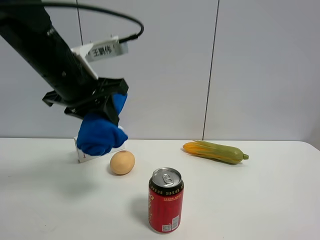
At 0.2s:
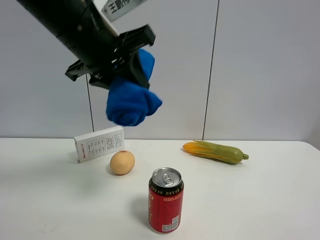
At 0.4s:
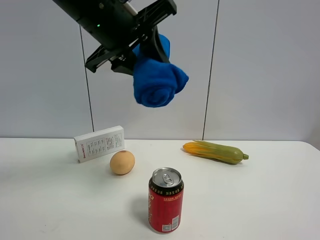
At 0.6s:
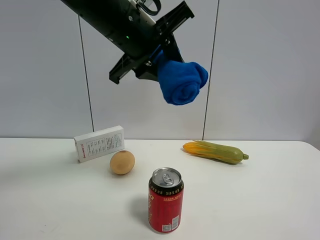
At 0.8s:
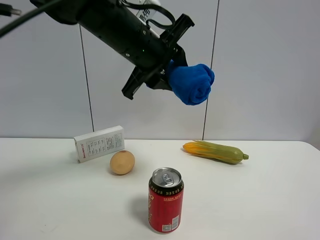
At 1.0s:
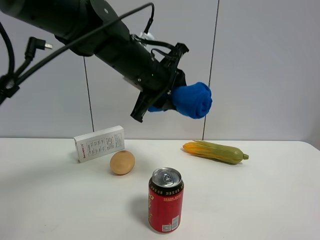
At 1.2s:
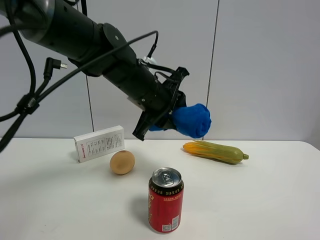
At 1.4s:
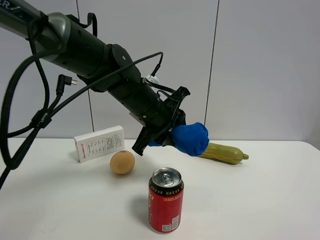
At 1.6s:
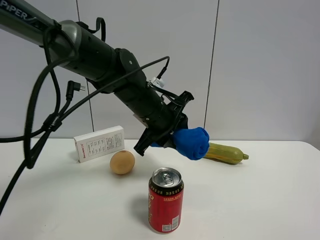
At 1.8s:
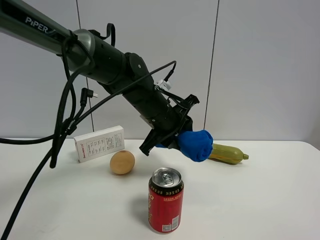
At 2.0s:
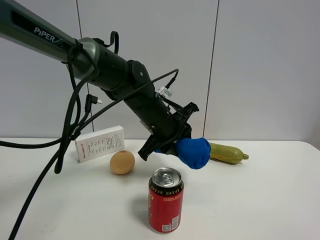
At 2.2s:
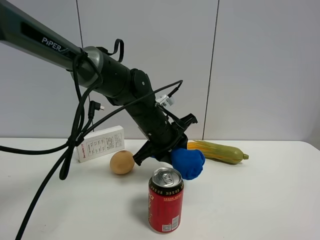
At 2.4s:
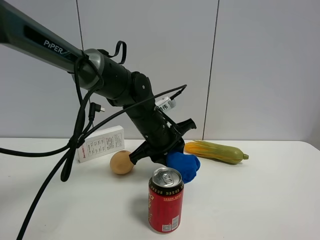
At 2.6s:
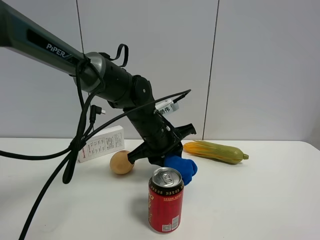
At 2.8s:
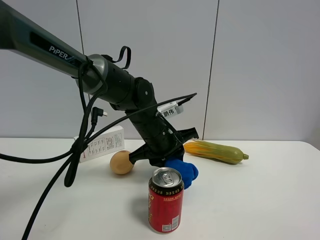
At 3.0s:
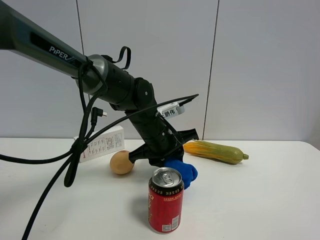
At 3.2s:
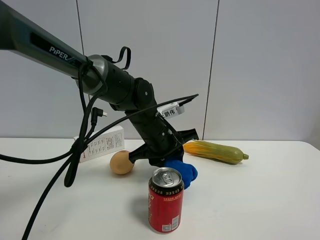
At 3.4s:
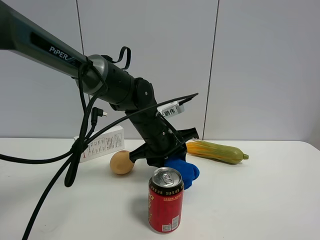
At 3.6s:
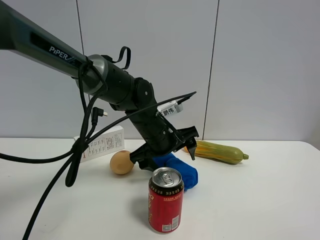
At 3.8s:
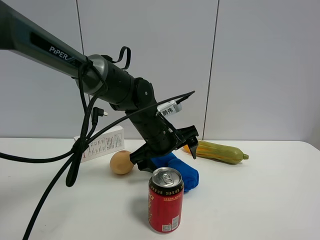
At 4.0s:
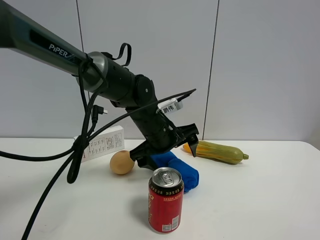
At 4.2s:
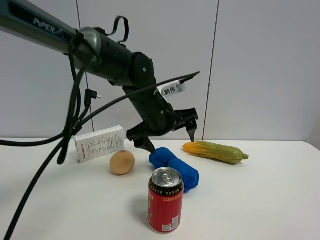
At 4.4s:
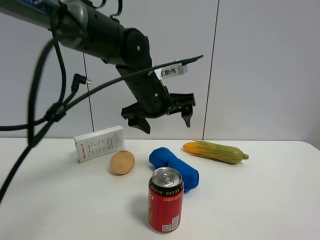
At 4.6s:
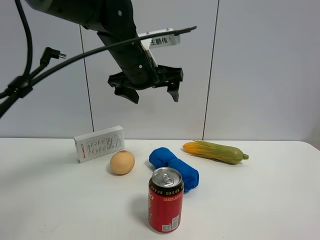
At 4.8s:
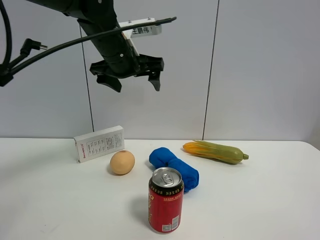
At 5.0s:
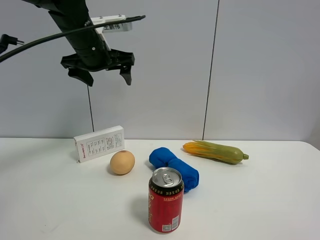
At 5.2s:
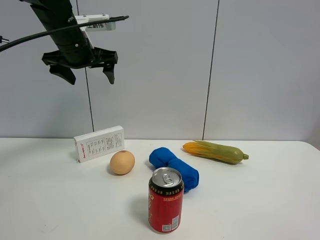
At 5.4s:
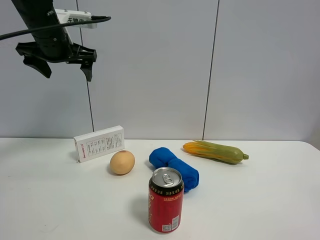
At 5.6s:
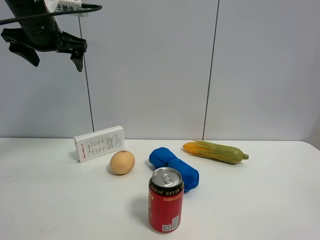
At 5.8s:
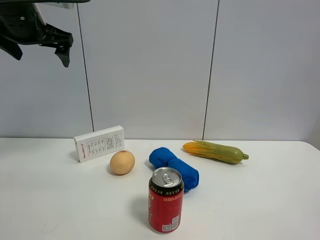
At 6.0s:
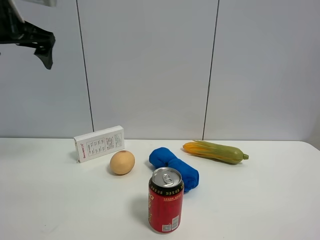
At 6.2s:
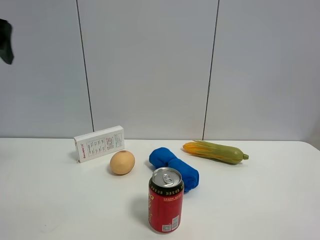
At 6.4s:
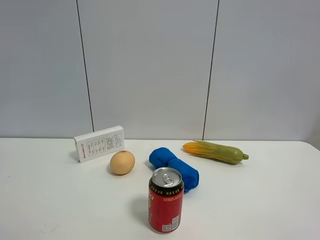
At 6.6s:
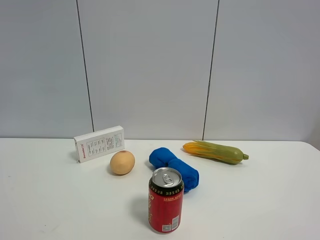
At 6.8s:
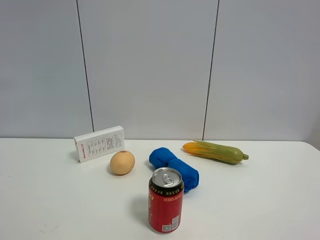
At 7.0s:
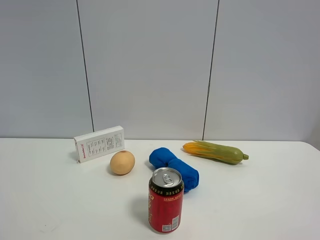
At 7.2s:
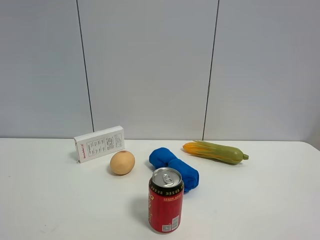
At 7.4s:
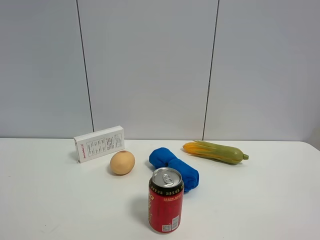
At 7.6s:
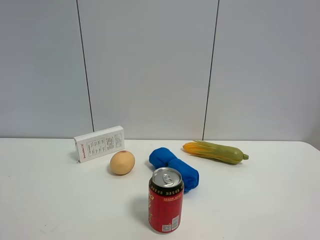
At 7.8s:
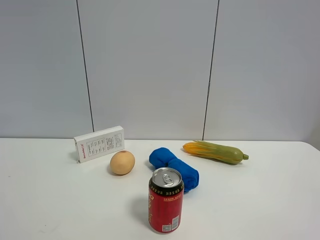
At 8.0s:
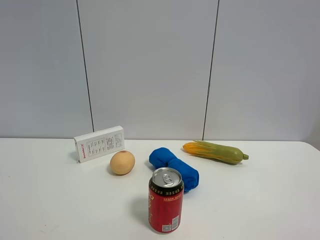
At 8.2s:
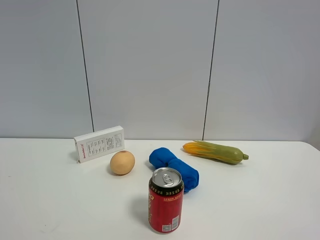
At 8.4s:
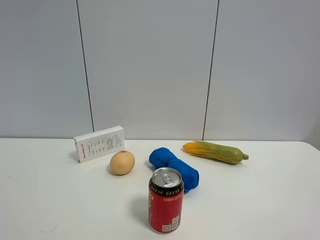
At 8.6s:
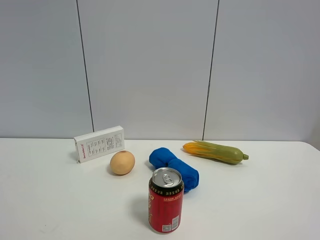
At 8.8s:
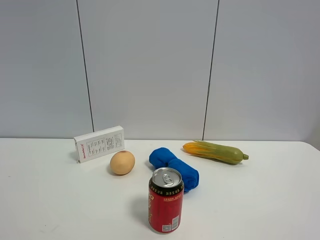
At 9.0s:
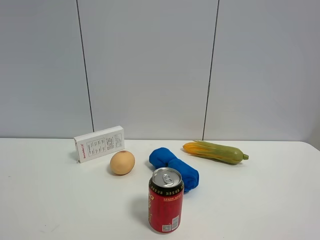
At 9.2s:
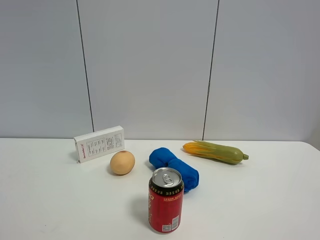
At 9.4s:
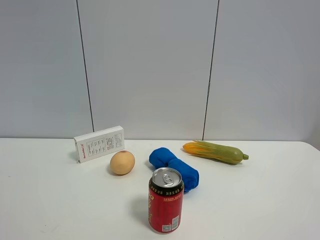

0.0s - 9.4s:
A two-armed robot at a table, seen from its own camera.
Task of the whole recording: the gripper move the object.
Step, 0.0s - 3.6s: Place the blue towel on the table with the left gripper.
0.0s - 1.6s: The left gripper shifts roughly 15 cm to the right, downward and forward.
1.6s - 3.2s: The left gripper is displaced downward by some 5 cm.
3.2s - 4.8s: The left gripper goes approximately 20 cm upward and to the left, and opens up.
4.8s - 6.2s: The left gripper moves to the left and backward, approximately 25 cm.
6.2s - 7.8s: The left gripper goes approximately 30 cm backward.

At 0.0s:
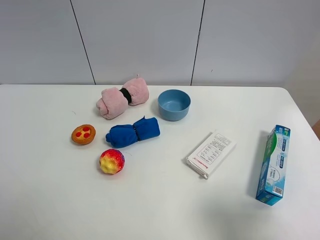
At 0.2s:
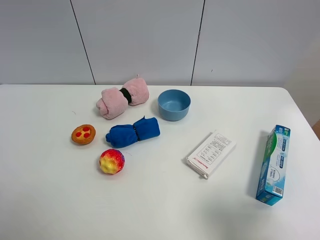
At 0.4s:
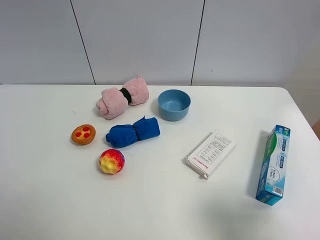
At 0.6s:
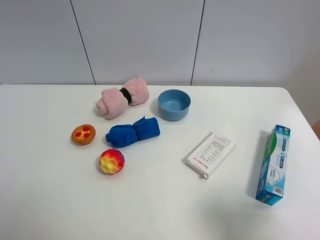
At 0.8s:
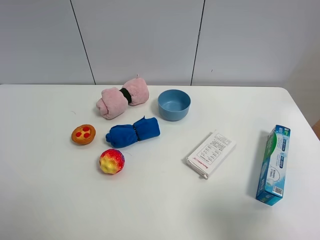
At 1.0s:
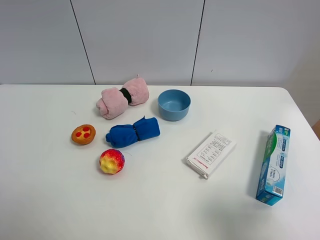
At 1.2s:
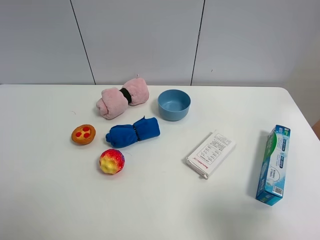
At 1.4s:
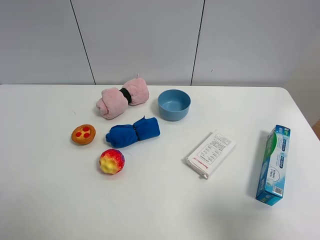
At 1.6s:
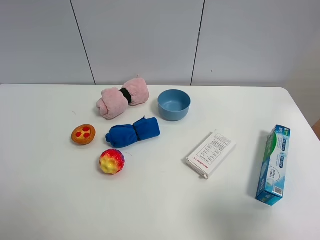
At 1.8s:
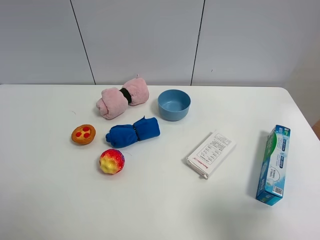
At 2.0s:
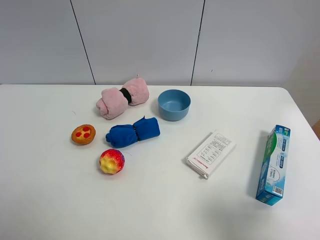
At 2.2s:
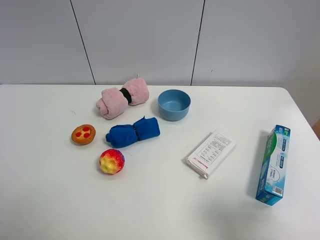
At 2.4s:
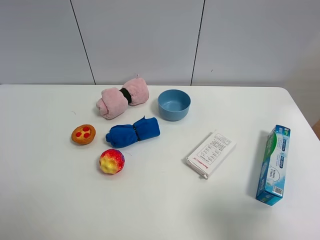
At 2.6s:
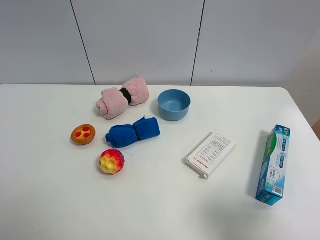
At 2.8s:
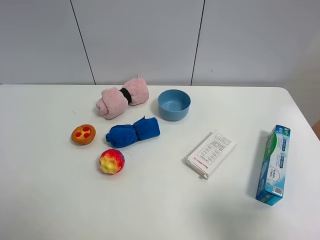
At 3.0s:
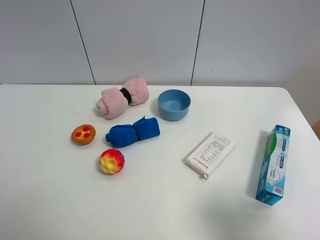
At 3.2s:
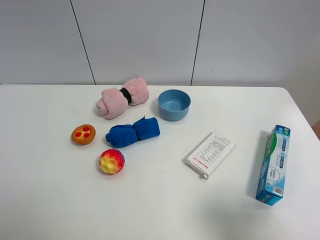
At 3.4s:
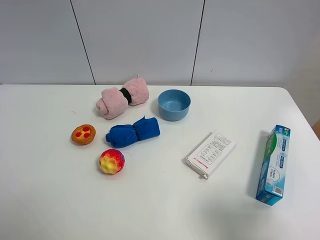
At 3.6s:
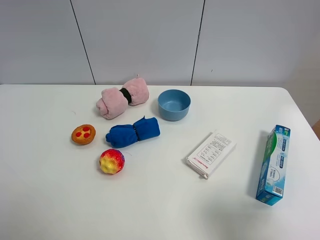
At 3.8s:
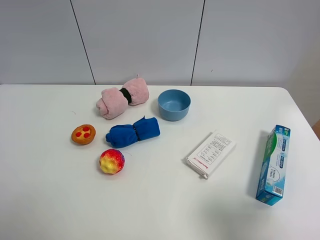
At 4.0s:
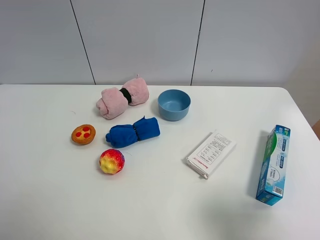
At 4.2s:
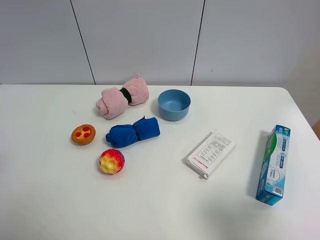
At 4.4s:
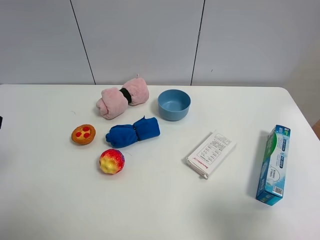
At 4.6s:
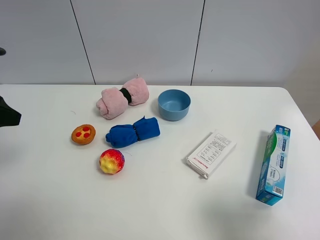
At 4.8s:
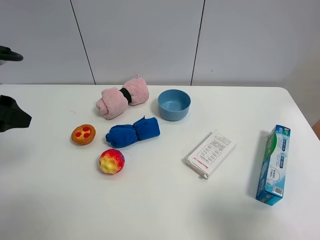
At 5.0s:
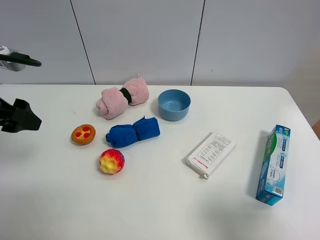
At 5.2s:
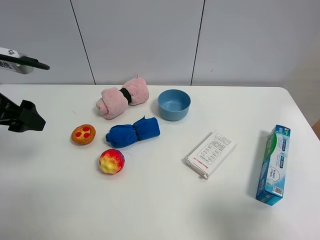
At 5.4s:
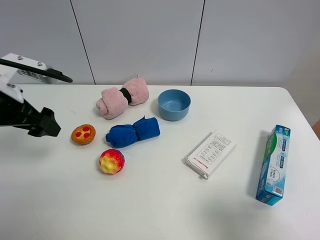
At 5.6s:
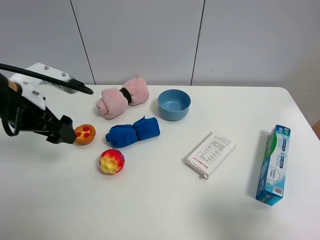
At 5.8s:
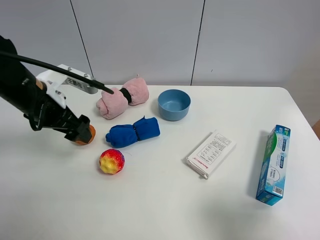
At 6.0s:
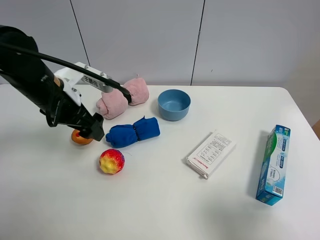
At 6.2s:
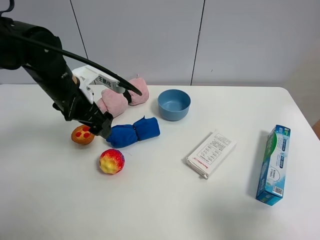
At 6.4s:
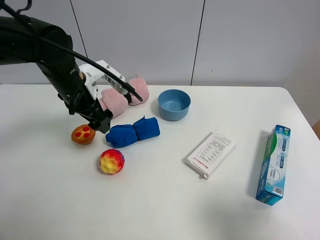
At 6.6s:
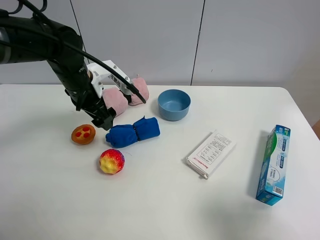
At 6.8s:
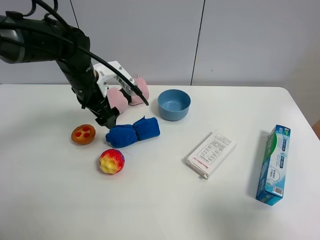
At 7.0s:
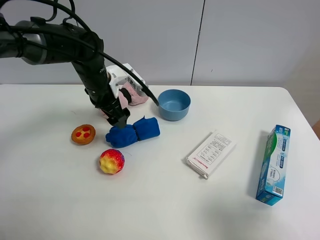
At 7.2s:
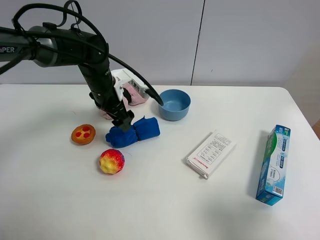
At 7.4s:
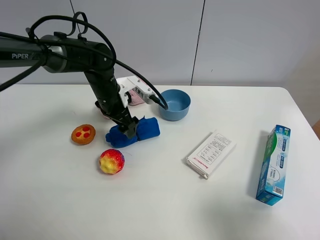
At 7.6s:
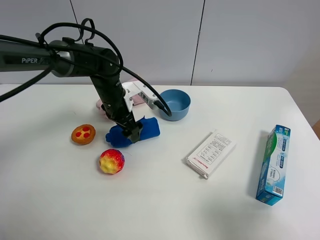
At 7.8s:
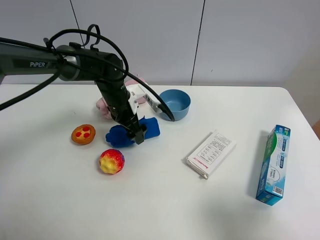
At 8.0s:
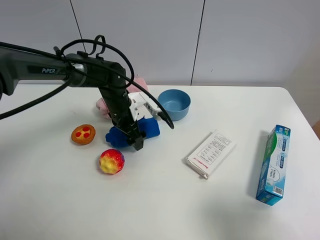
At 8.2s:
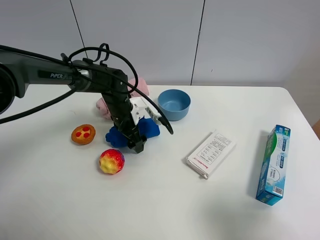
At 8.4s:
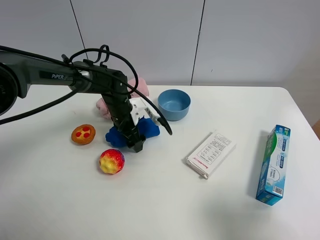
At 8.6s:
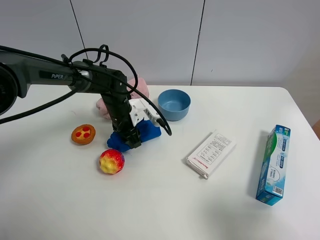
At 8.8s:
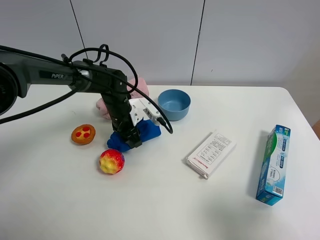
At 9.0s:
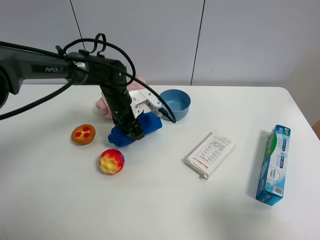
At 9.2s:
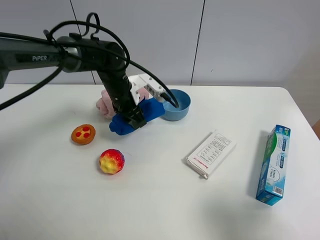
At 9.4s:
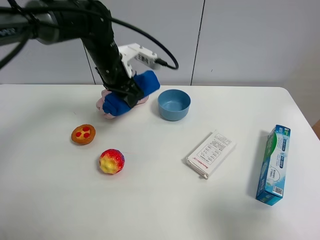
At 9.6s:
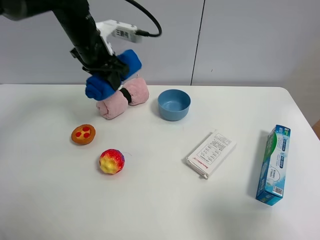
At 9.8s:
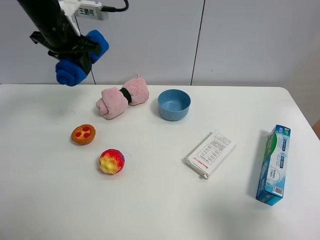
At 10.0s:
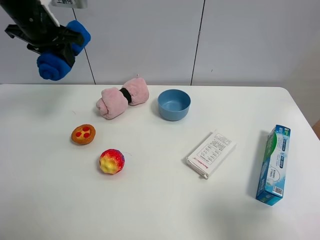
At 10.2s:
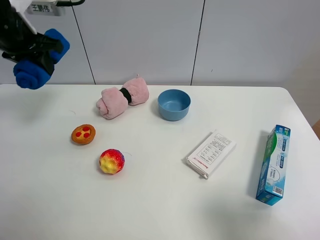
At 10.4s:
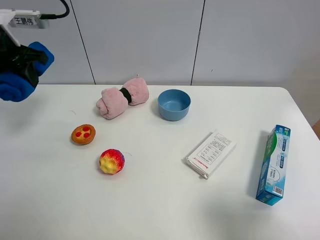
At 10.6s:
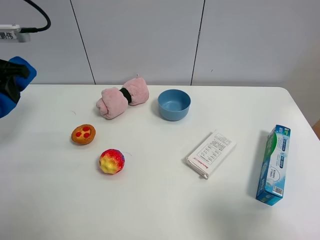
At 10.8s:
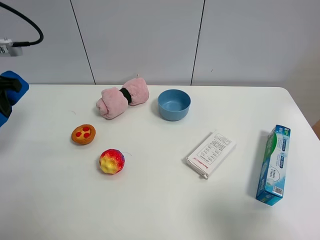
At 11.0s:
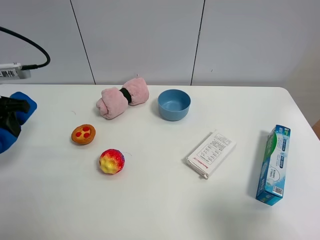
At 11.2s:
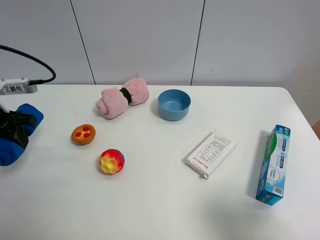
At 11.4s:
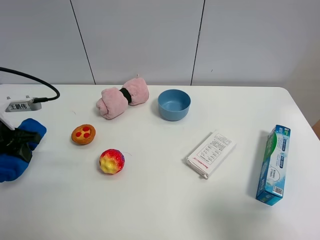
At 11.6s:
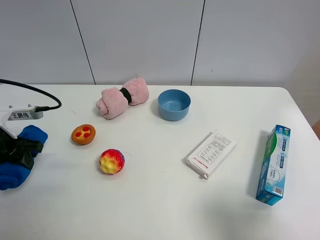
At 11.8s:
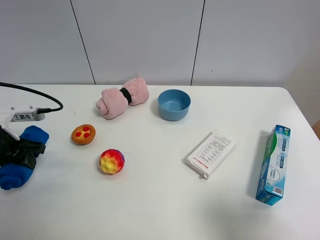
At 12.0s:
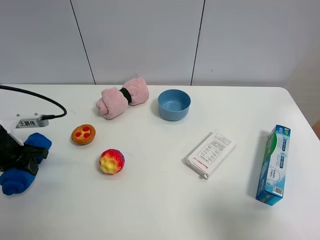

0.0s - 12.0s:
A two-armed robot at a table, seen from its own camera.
Task of the whole recording: the gripper move the object.
Step, 0.0s - 8.6s: Grasp the blue towel with the left gripper.
0.0s - 3.0s: Both grippers stay put.
4.4s - 6.0s: The left gripper goes some 20 cm to the right, forward and downward.
6.0s - 7.6s: The left gripper travels forward, downward and to the right by about 15 cm.
7.6s - 9.0s: The left gripper closes its fingers.
9.0s - 10.4s: The left gripper moves to the left and upward, roughly 30 cm.
10.4s - 12.0s: The left gripper shifts approximately 20 cm downward and backward.

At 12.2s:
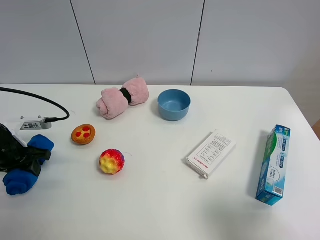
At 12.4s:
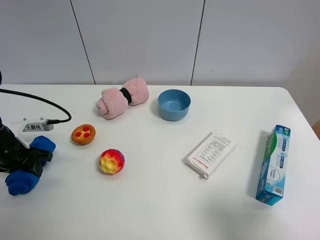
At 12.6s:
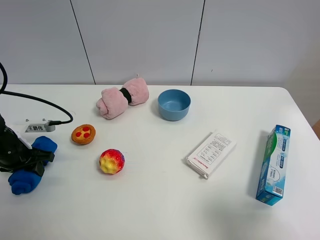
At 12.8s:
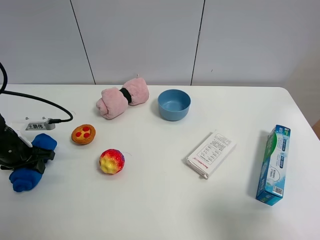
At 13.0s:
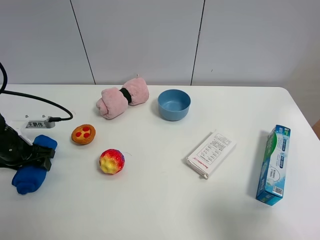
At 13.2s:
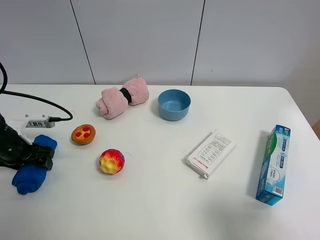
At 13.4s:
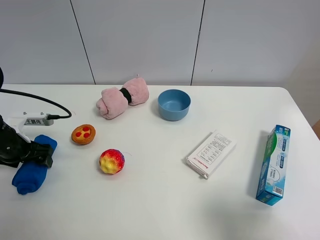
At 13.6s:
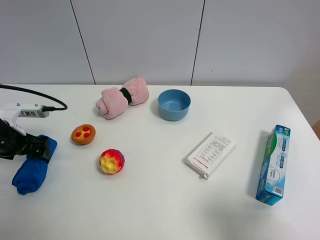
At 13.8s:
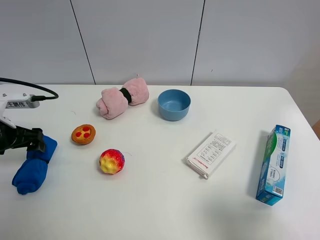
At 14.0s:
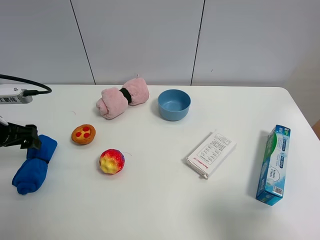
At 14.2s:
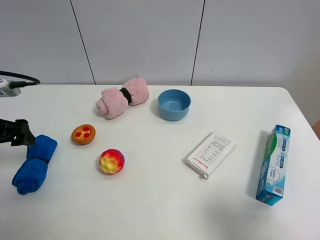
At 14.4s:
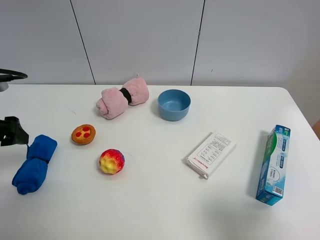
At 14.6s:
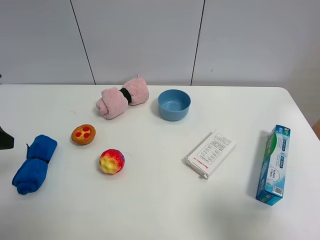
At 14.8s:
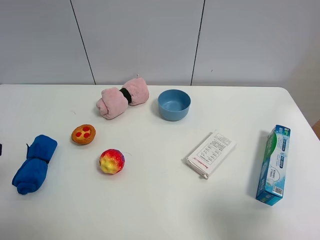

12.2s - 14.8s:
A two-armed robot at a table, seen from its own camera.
Task of the whole recording: the gripper move the object.
12.2s - 13.4s: The left gripper opens its fingers.
13.4s - 14.8s: The left gripper shifts about 25 cm upward and backward.
